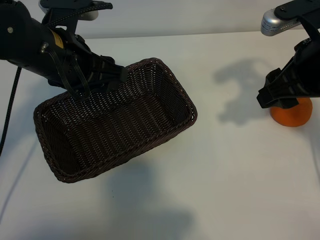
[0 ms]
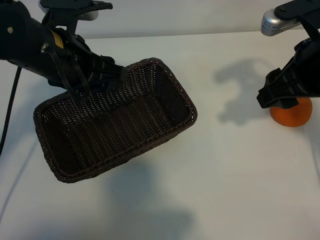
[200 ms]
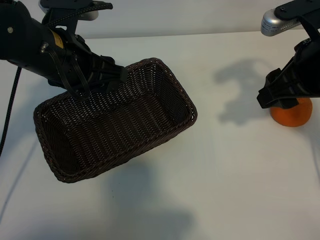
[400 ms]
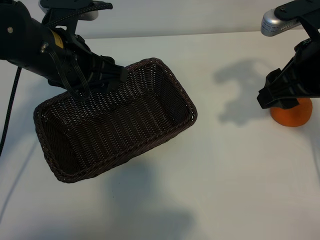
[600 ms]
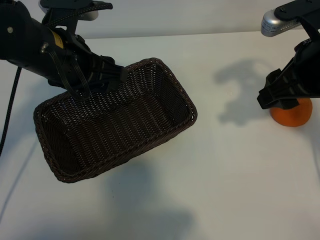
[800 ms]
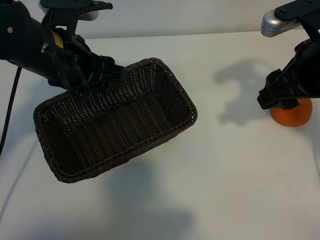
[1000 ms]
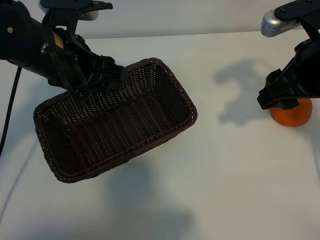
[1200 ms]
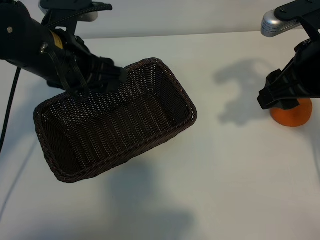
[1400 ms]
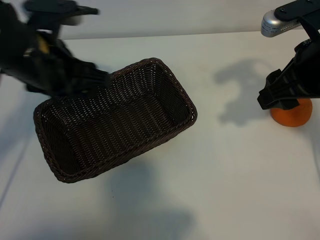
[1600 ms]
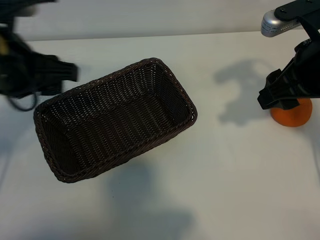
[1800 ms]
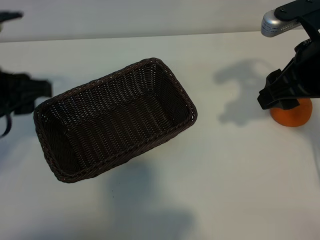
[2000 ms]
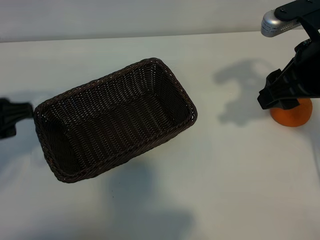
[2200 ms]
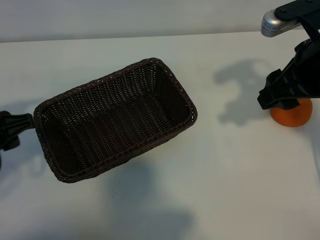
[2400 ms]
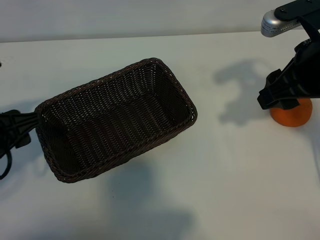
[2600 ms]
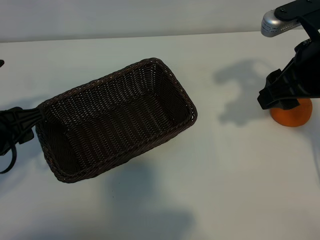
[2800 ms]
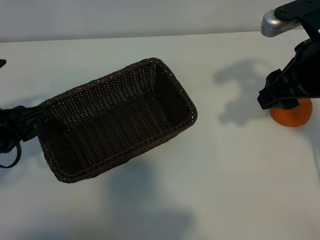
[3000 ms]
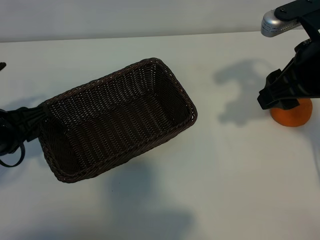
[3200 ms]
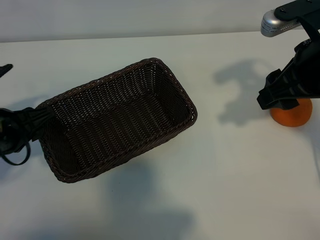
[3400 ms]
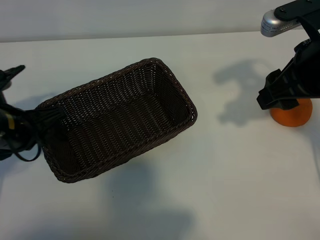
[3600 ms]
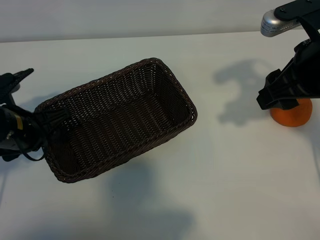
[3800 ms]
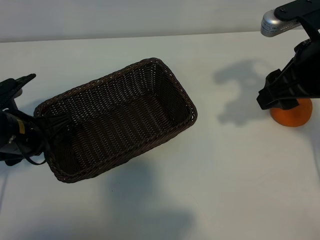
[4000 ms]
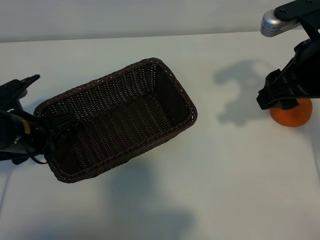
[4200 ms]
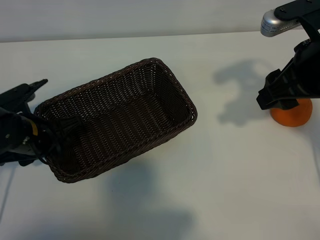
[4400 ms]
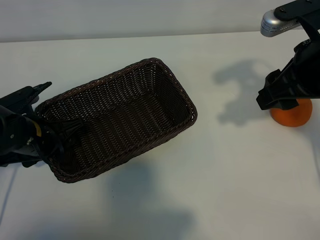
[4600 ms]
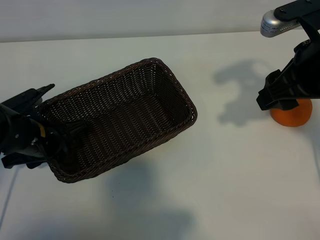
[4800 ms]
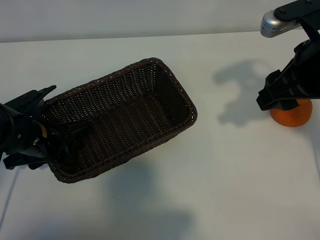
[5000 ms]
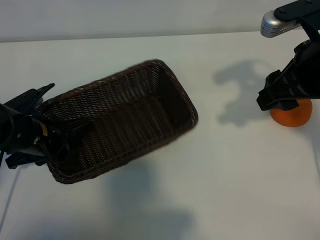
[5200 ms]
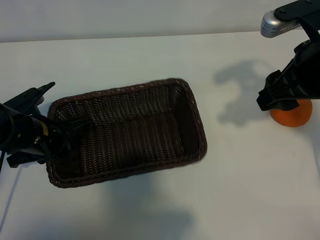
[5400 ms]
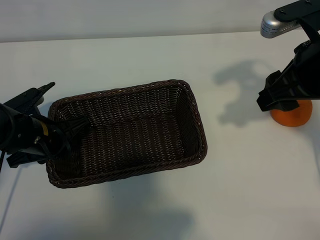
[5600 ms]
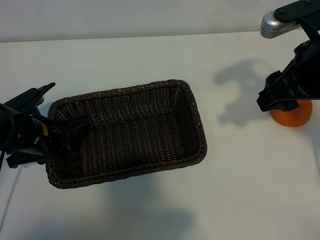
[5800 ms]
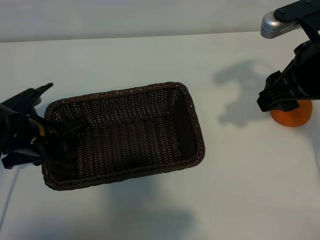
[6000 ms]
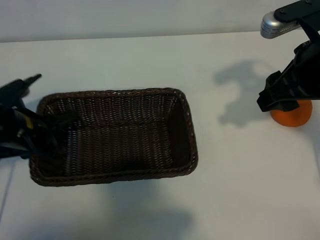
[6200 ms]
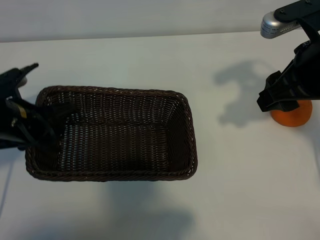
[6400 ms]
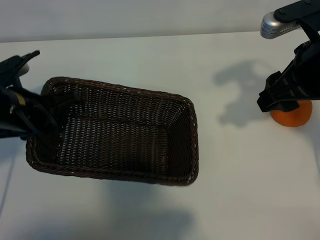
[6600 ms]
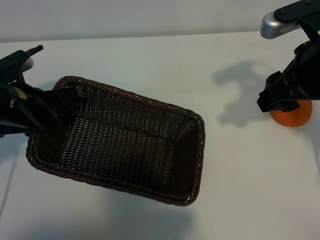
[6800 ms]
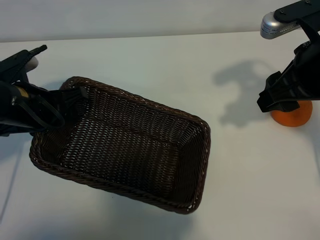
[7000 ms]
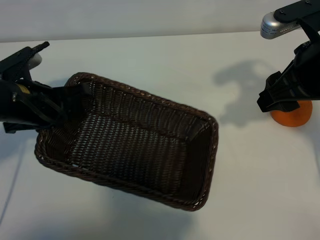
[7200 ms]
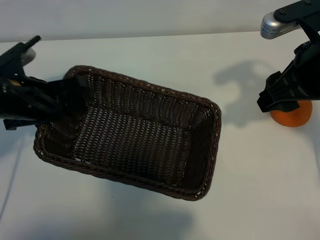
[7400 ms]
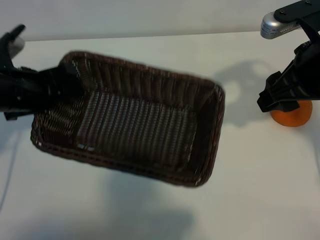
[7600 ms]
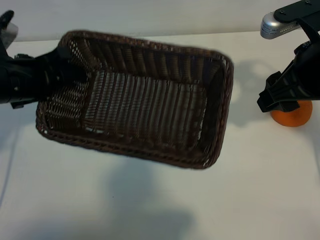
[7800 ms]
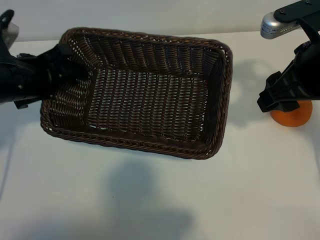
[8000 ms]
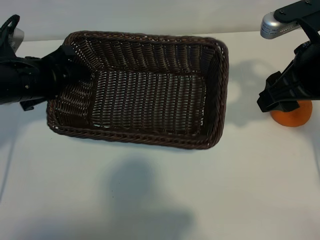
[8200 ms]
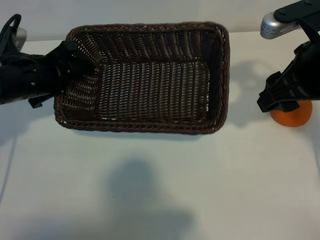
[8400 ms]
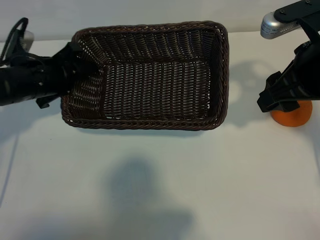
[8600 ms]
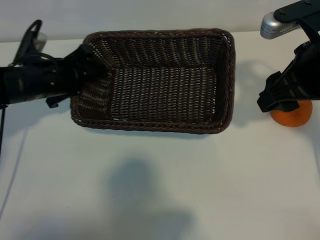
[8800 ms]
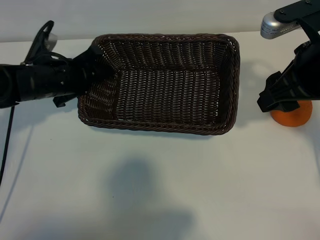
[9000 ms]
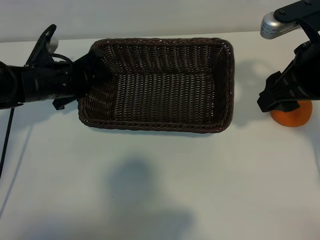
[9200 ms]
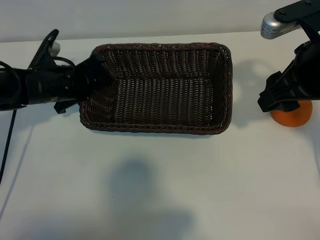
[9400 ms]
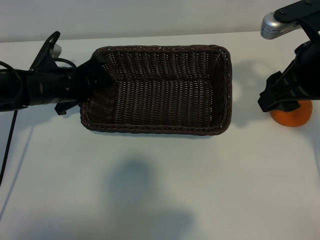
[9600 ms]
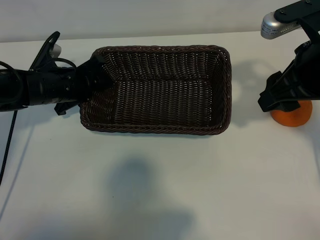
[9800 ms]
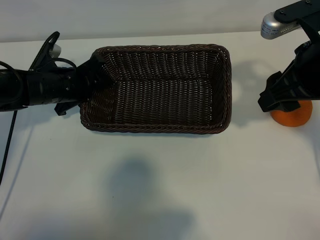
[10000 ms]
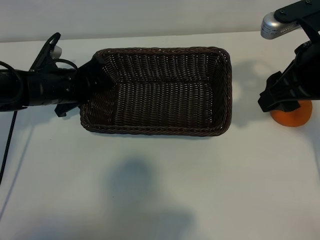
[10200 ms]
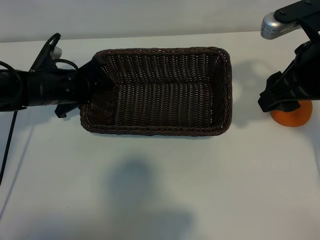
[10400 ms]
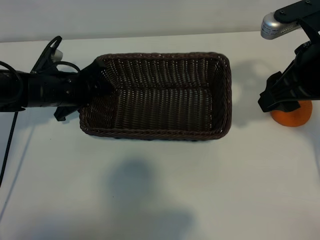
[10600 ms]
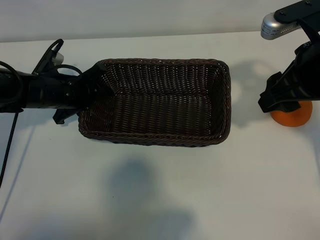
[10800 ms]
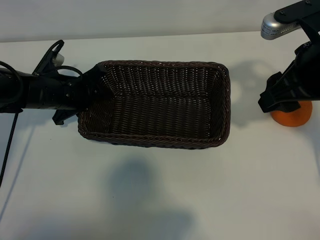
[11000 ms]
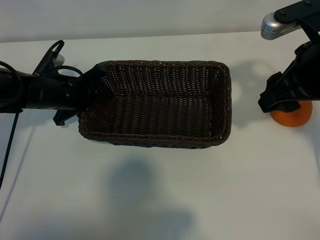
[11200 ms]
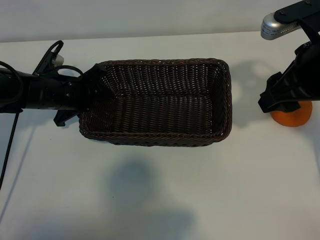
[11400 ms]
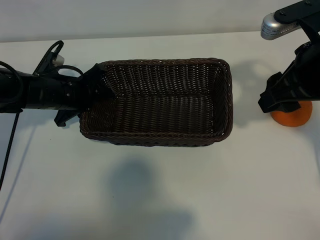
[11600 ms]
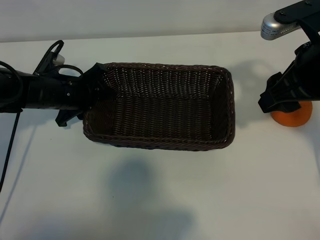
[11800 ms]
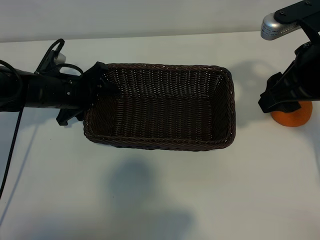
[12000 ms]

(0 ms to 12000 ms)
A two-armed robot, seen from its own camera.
Task of the whole recording: pick up the orange and put it into the basket.
Step, 1400 ms - 5600 ms: Grasp the basket with left gripper.

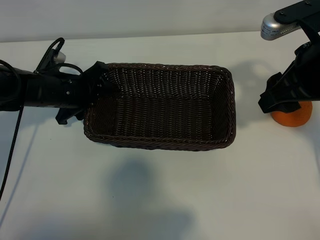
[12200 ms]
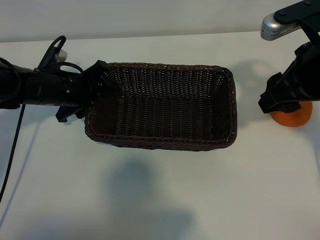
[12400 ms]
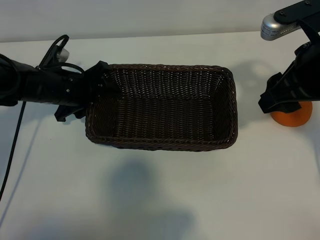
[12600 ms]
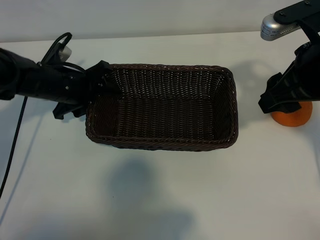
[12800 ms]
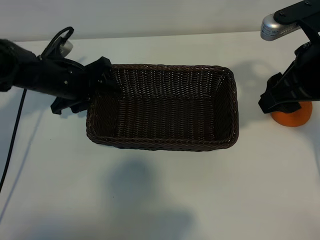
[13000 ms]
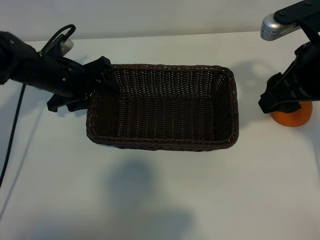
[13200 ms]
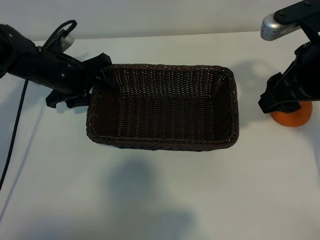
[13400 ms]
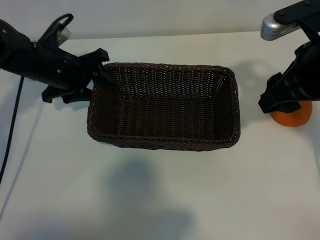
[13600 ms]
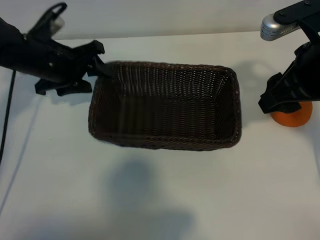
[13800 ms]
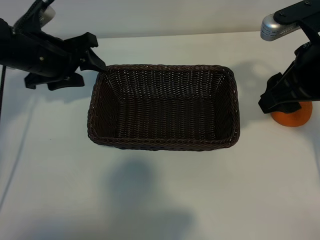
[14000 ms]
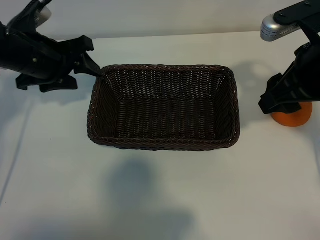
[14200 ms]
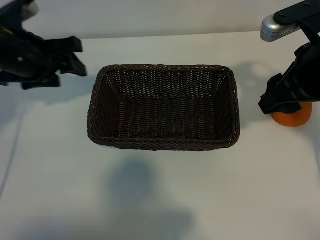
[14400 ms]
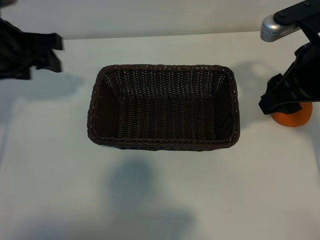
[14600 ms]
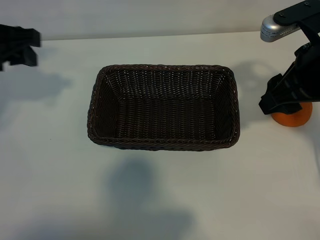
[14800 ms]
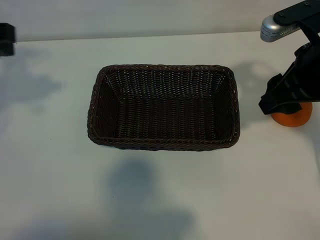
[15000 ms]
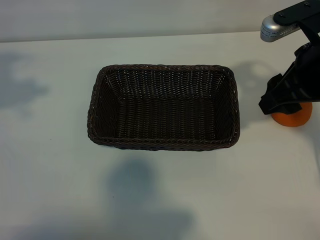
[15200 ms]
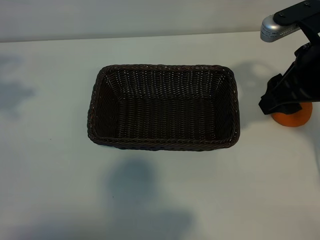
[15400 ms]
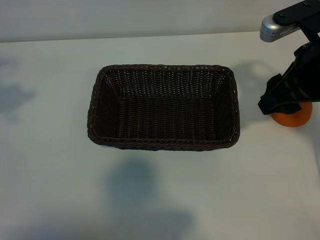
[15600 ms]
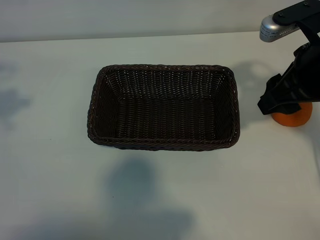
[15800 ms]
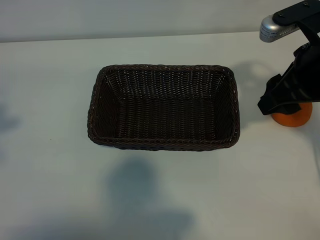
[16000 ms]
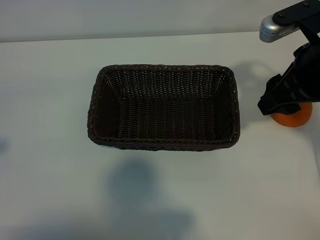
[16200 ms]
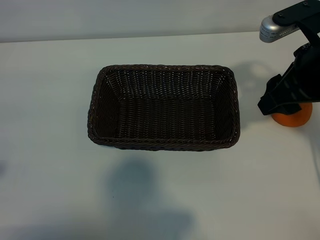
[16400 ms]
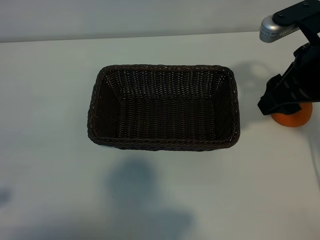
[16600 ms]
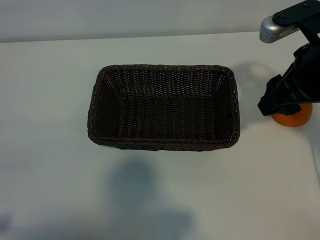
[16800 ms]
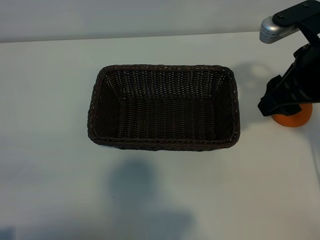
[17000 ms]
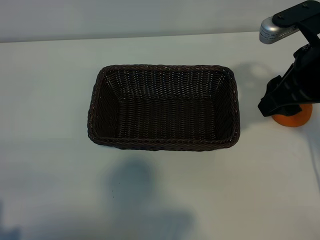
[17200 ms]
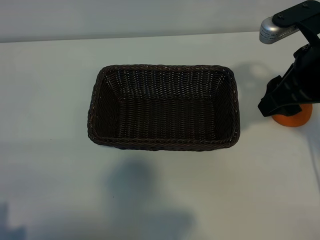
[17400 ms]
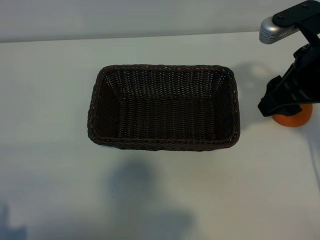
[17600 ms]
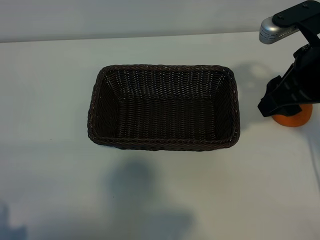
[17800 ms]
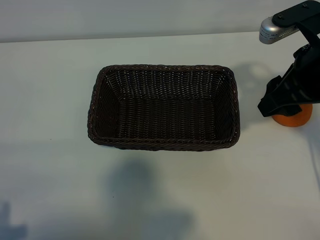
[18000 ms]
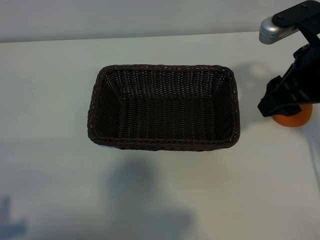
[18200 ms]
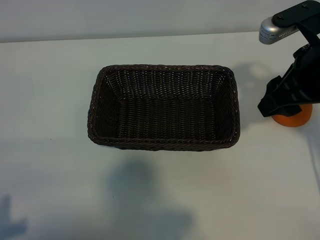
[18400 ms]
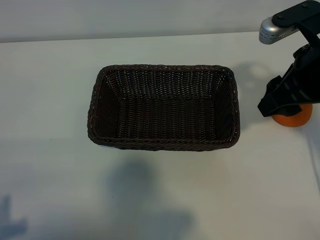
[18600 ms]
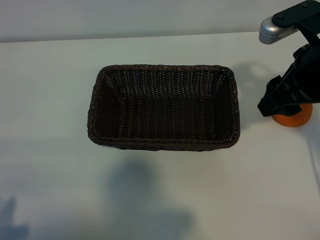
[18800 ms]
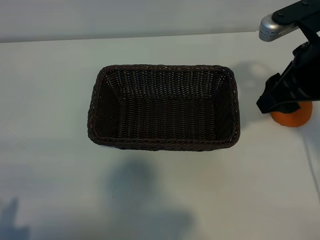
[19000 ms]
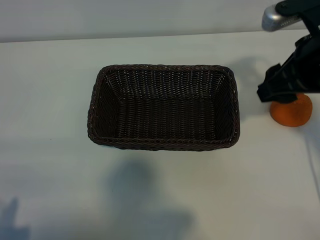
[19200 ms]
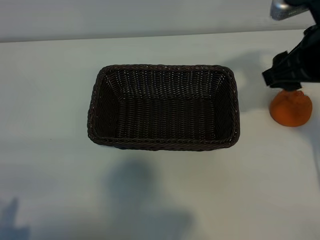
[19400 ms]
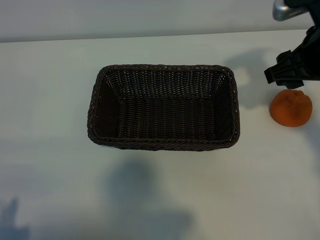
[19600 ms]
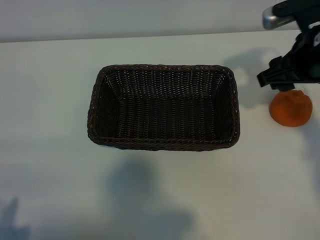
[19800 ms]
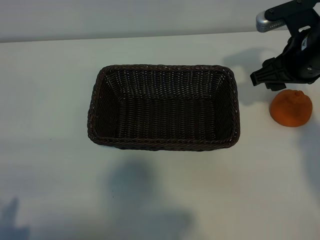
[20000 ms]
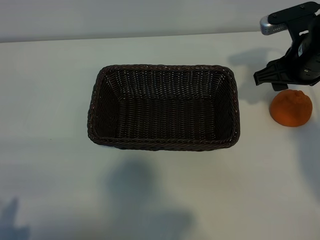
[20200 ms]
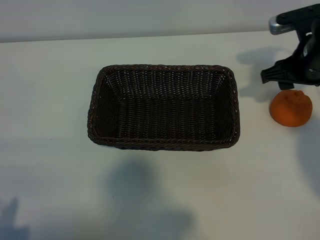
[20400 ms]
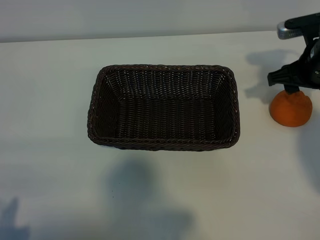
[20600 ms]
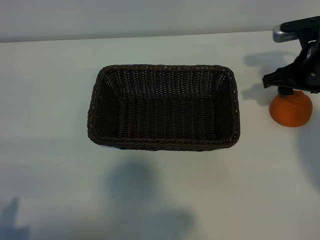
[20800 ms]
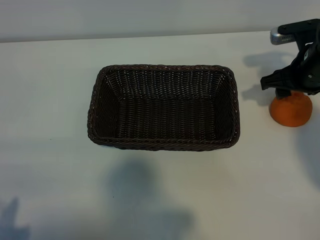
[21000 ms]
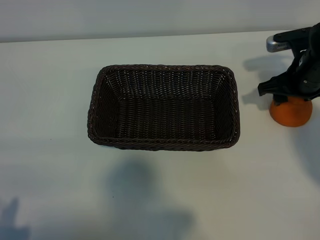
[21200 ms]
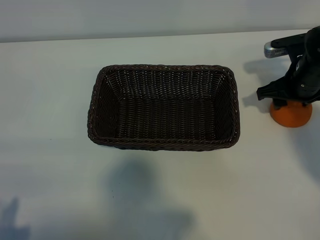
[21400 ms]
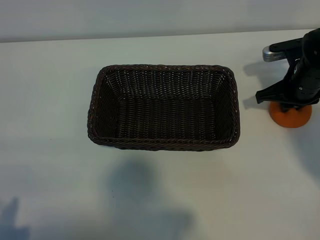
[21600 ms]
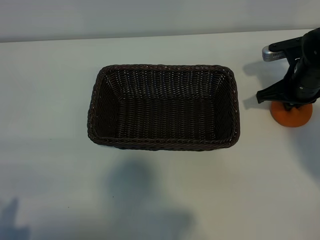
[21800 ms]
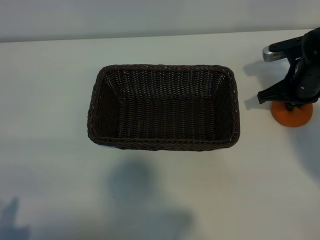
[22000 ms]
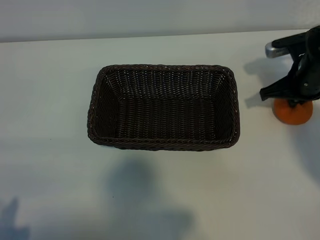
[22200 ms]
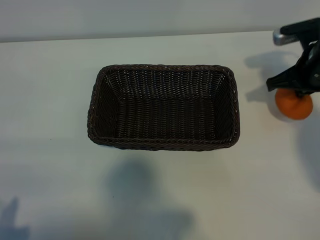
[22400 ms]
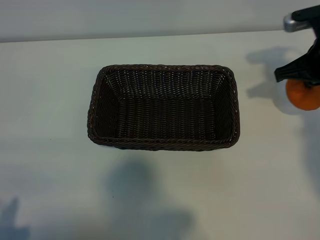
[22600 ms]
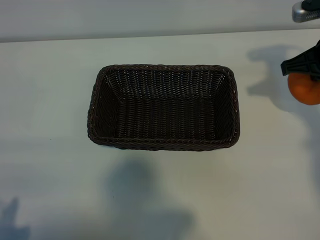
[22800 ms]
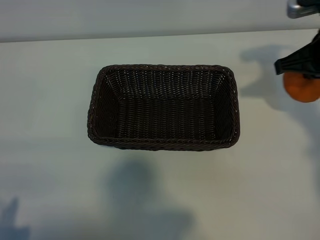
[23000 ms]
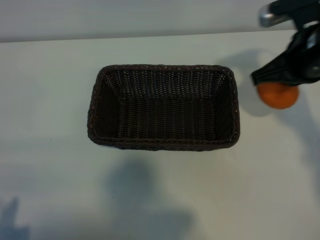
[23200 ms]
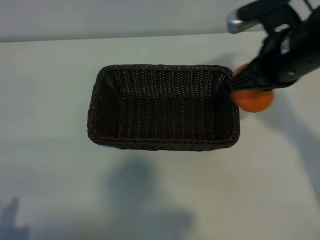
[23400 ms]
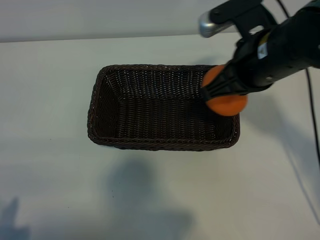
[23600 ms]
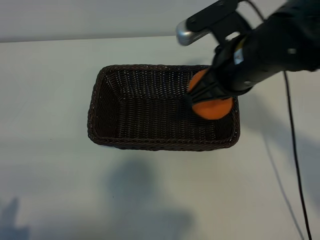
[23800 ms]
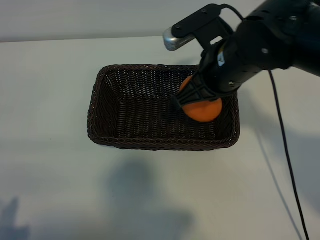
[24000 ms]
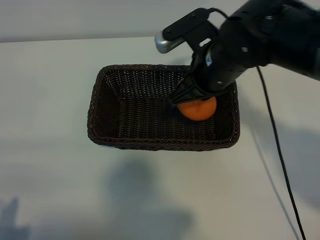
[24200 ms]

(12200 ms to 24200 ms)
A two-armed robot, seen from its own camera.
Task of the whole recording: pick up the orange and put it into the basket.
Step, 13000 ms - 21600 ms: Grasp the orange with right gripper.
